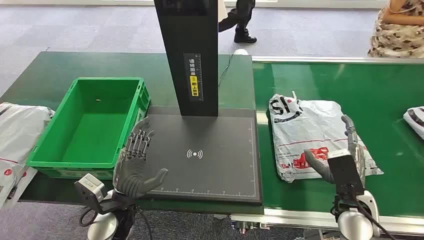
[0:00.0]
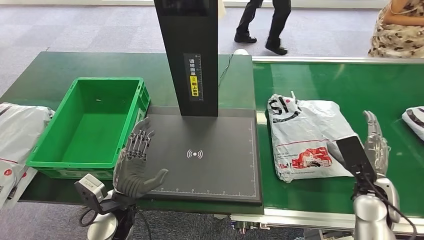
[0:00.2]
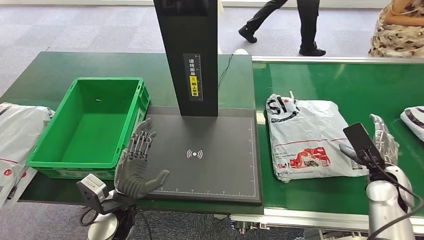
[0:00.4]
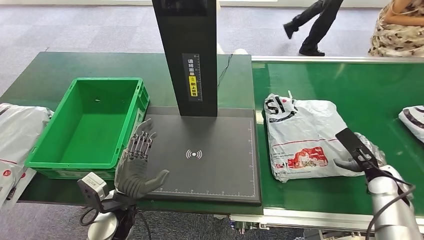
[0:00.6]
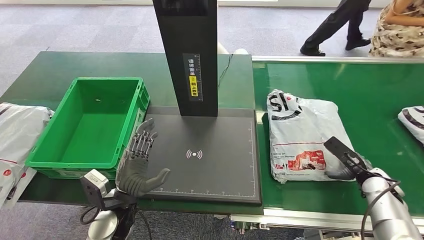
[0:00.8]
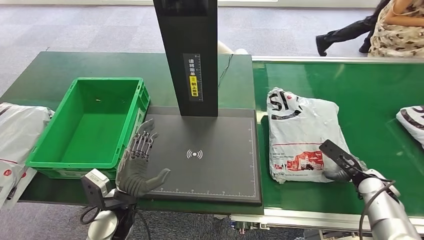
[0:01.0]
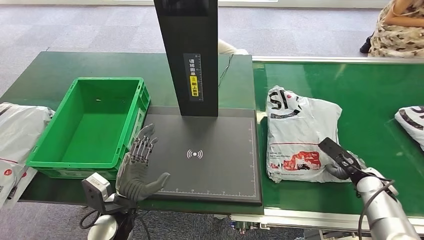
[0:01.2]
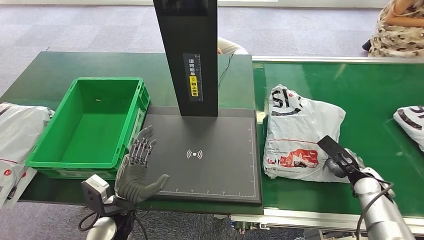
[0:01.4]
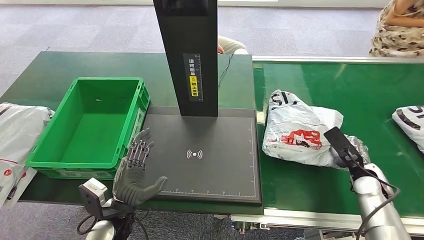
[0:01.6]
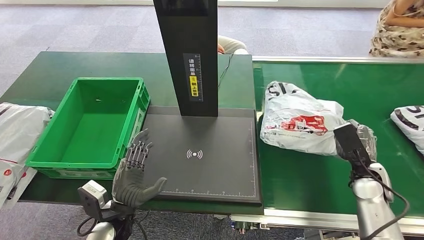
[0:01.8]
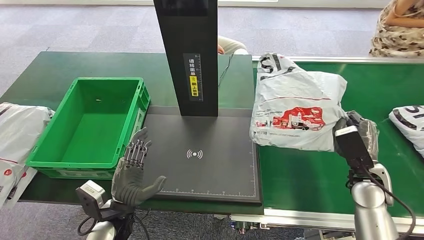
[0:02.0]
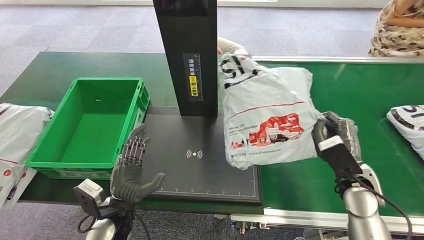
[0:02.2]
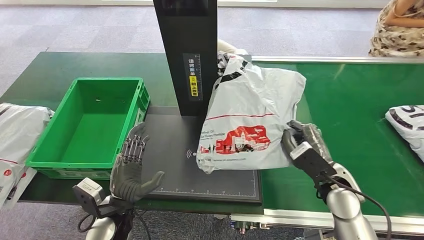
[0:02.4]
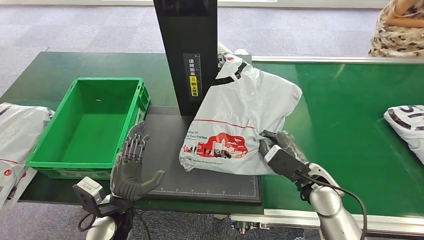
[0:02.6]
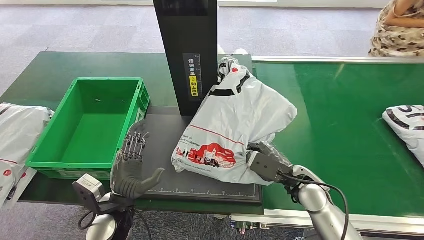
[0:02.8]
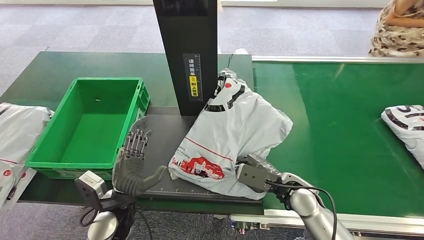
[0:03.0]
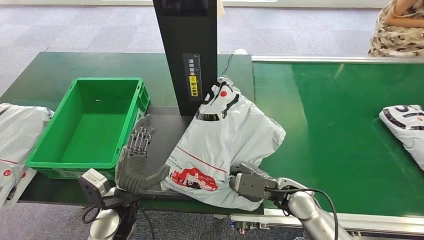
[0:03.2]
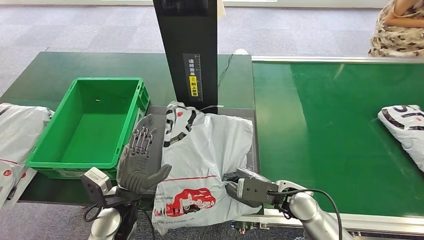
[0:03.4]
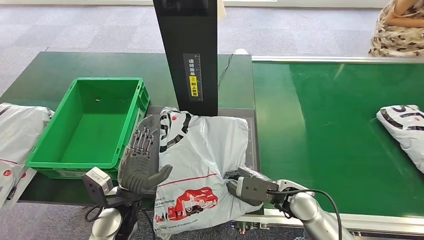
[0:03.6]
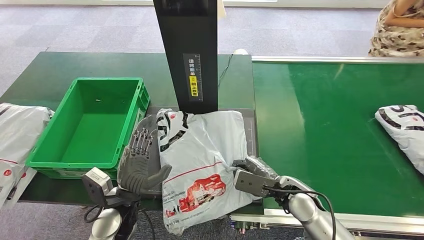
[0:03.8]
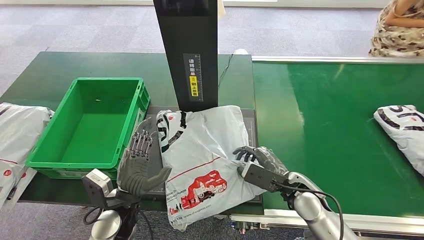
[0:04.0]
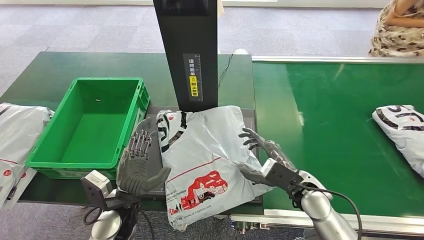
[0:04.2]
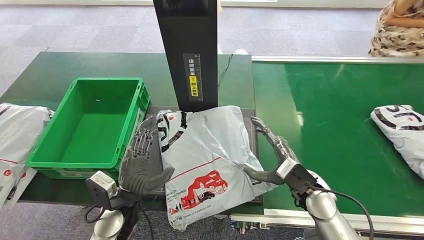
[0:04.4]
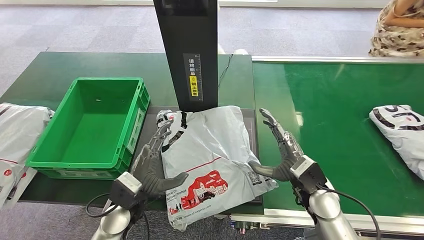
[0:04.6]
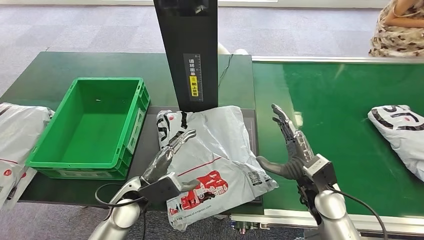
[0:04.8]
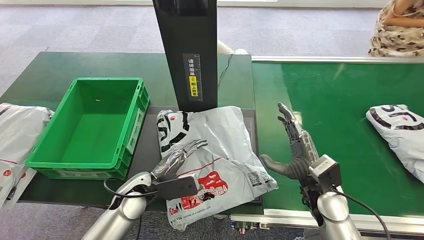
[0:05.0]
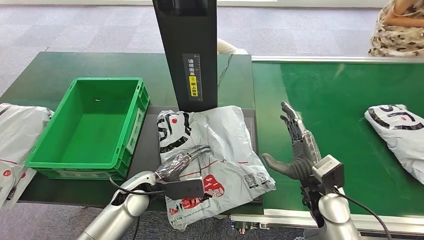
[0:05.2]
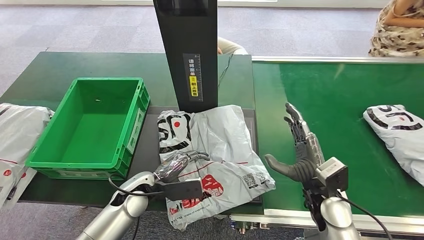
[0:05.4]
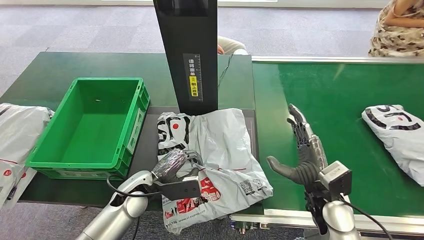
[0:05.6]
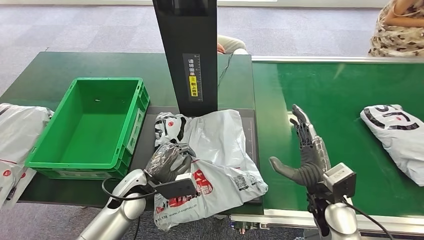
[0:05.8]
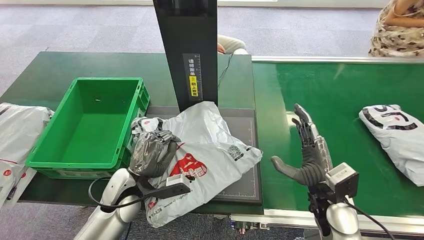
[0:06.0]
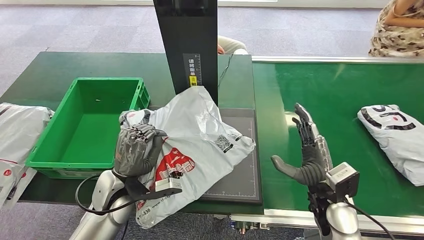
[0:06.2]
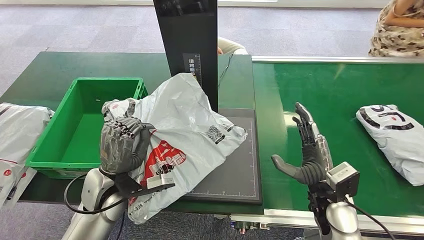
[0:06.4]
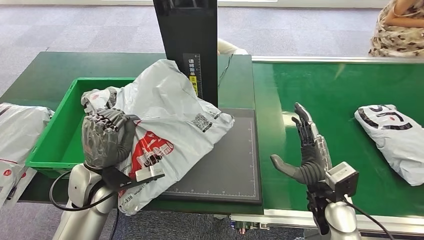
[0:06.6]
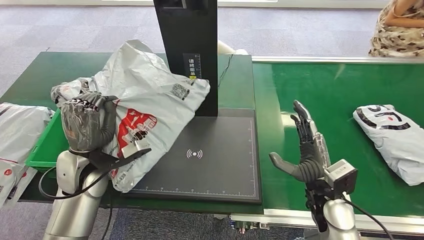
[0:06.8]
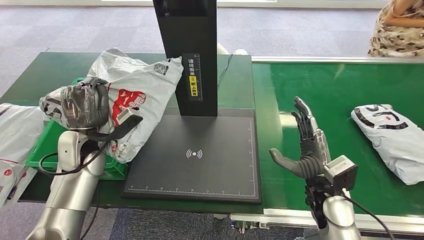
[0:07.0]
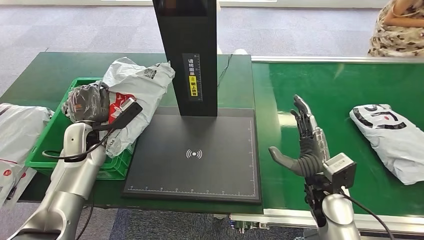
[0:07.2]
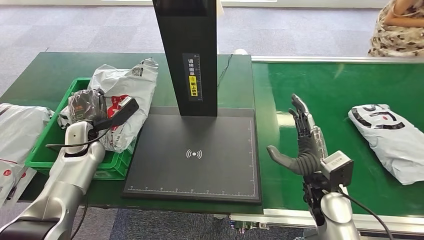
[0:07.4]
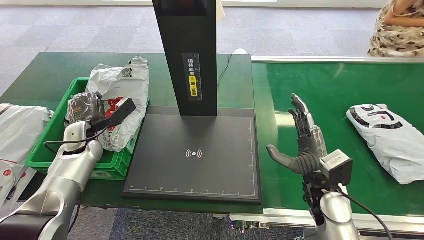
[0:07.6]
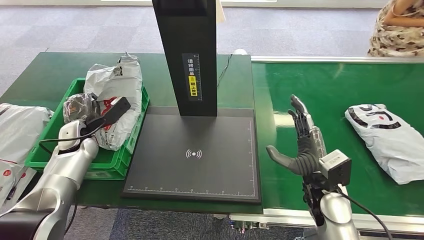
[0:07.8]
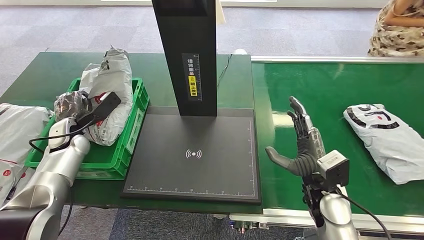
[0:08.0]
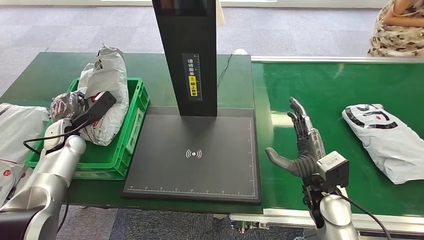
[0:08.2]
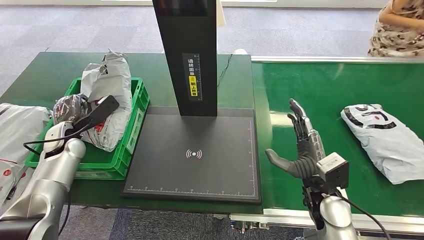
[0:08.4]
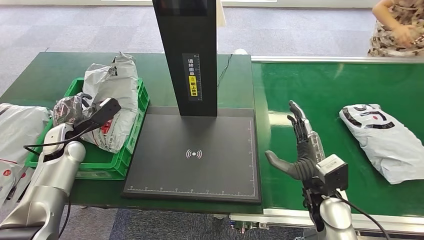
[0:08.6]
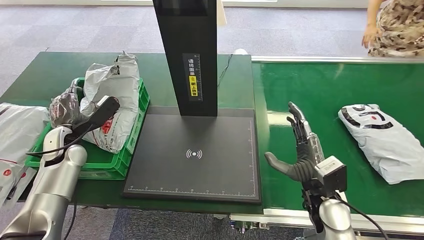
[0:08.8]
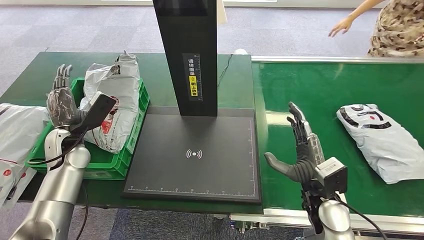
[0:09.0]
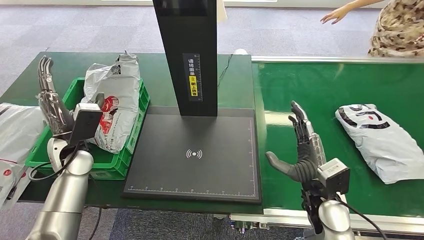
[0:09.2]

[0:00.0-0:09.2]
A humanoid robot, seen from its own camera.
Task of the whole recording: Weigh the package on the weighing device and place it in the left basket.
Step, 0:00.0 to 0:02.4: Pick up the package from the conveyor belt.
Step, 0:02.6 to 0:04.6: Place the package onto the inbound machine.
Step, 0:04.8 to 0:06.2: Pick up the package from the inbound machine.
Step, 0:06.4 to 0:09.2: Place the package into the parcel locker.
0:07.6 to 0:09.2: The left hand travels backward by some 5 cm.
